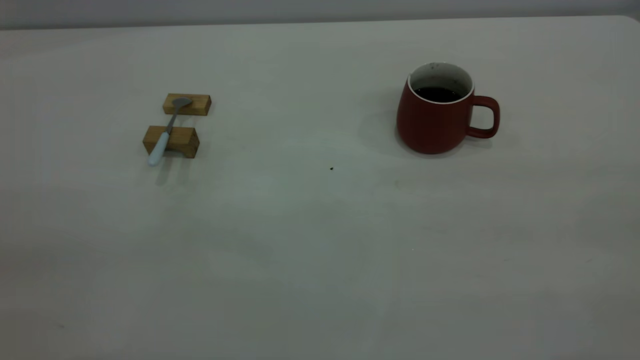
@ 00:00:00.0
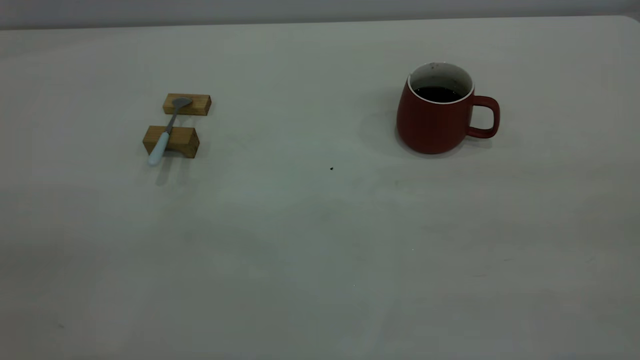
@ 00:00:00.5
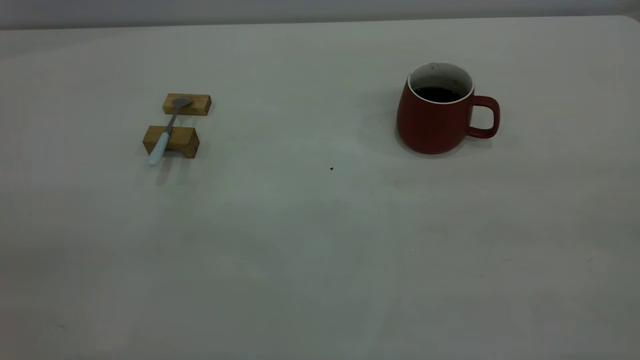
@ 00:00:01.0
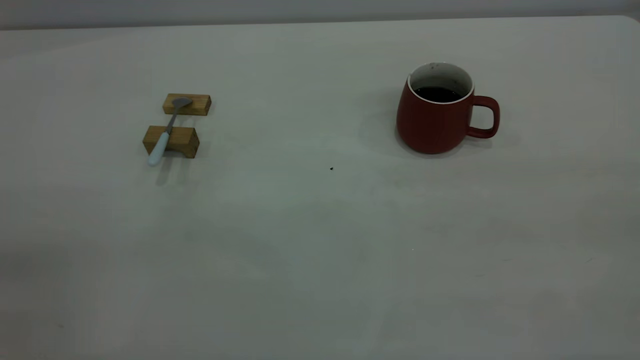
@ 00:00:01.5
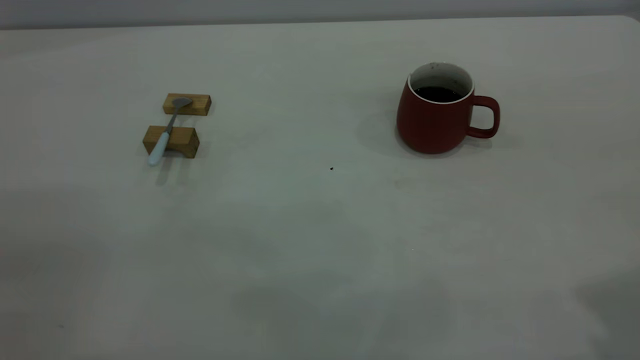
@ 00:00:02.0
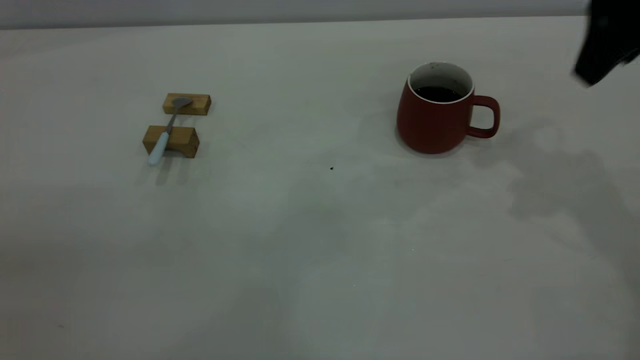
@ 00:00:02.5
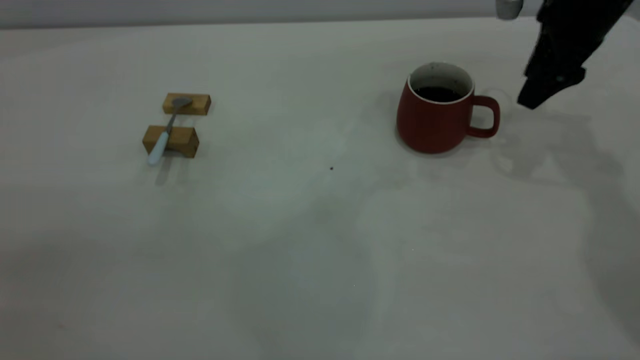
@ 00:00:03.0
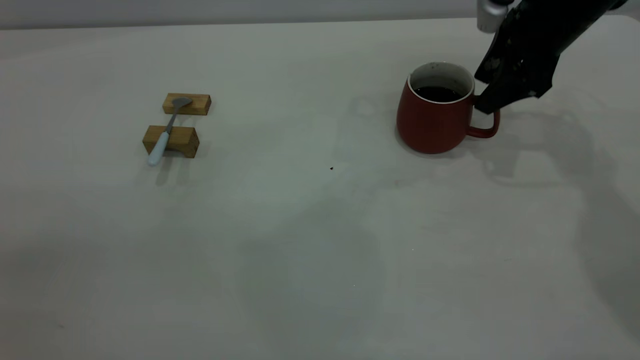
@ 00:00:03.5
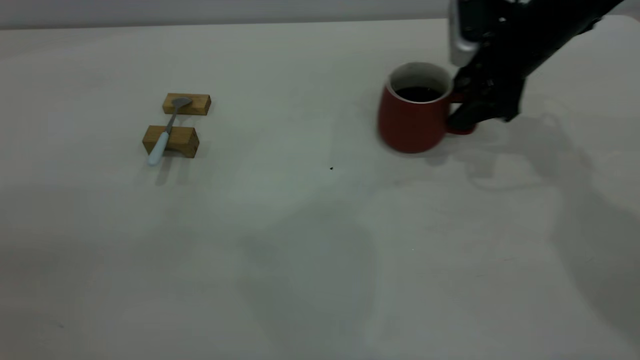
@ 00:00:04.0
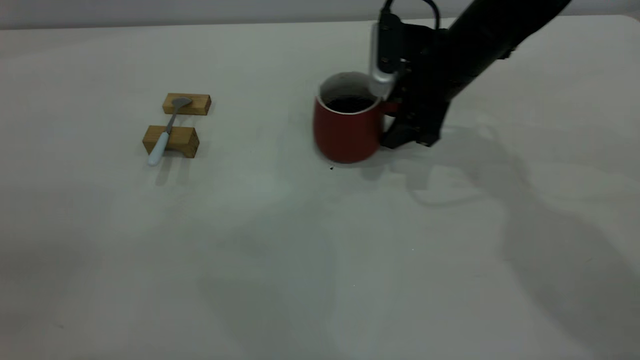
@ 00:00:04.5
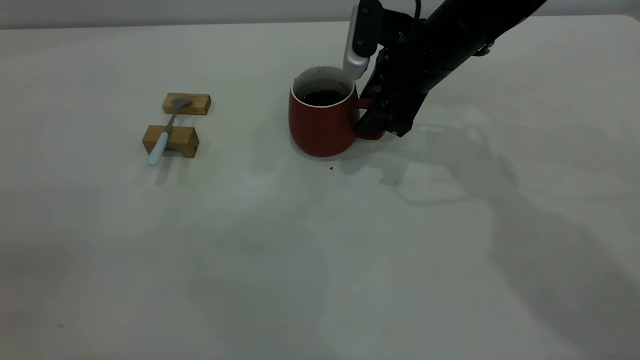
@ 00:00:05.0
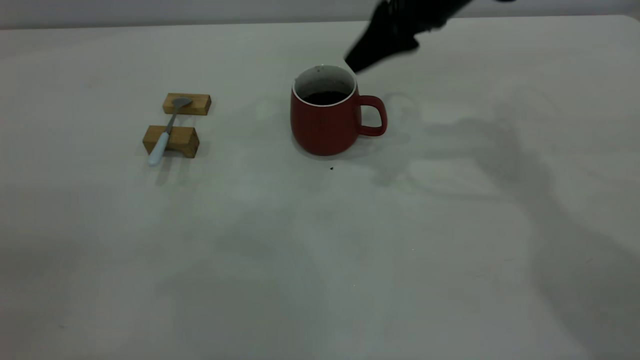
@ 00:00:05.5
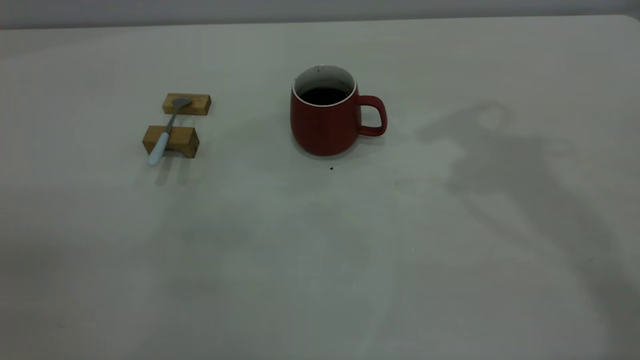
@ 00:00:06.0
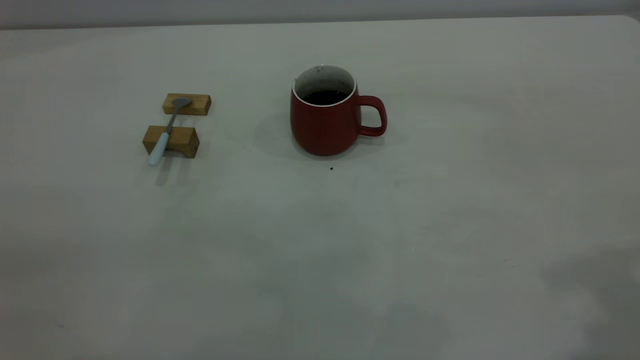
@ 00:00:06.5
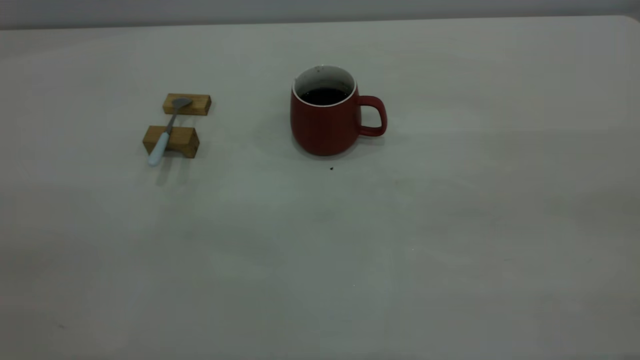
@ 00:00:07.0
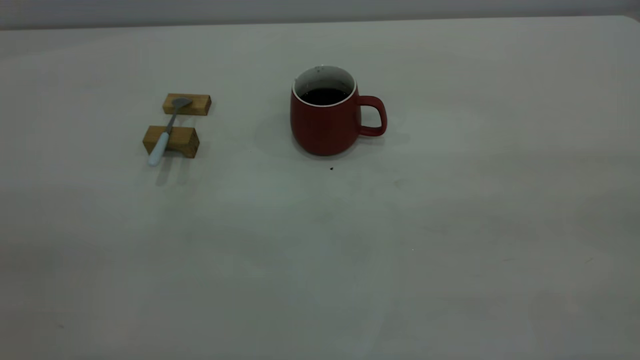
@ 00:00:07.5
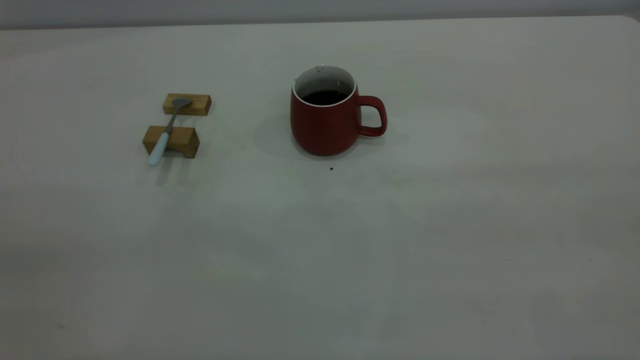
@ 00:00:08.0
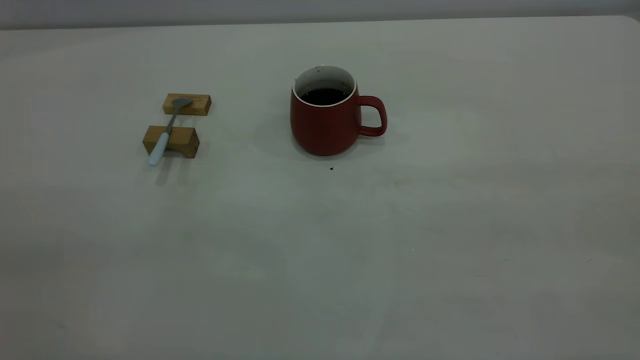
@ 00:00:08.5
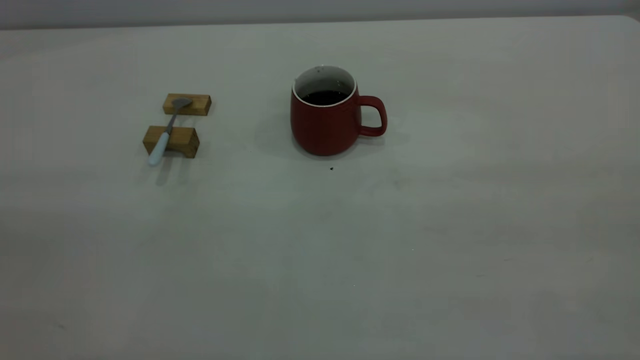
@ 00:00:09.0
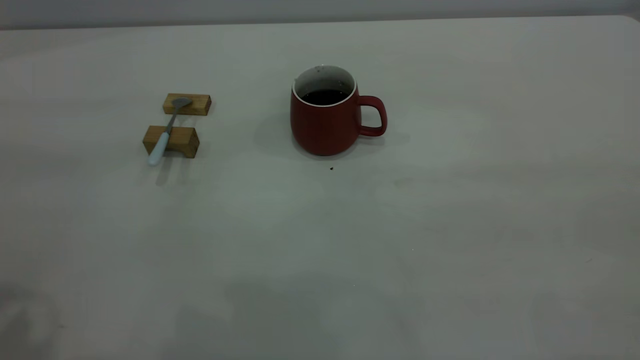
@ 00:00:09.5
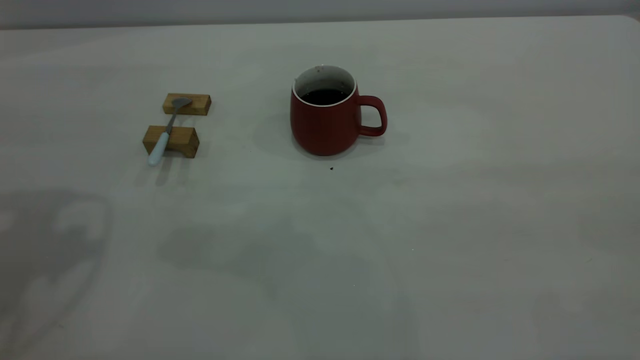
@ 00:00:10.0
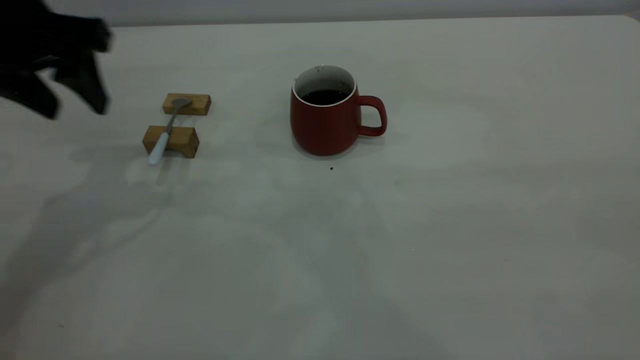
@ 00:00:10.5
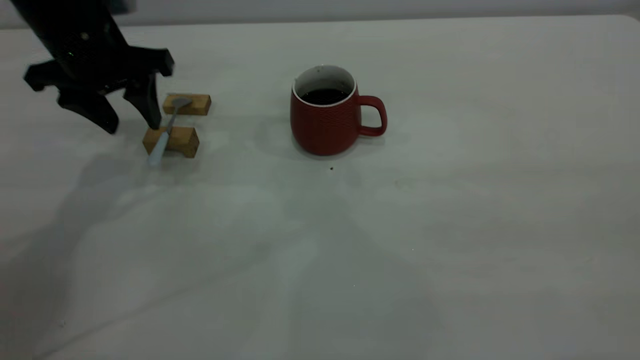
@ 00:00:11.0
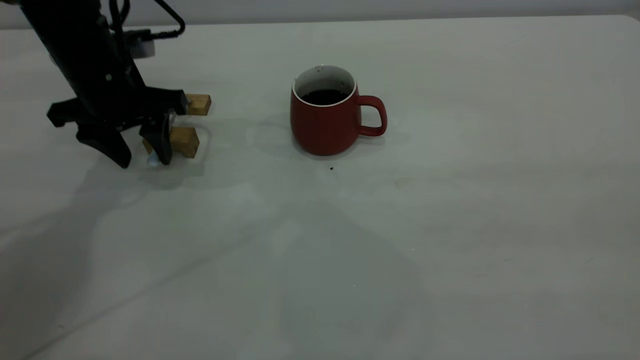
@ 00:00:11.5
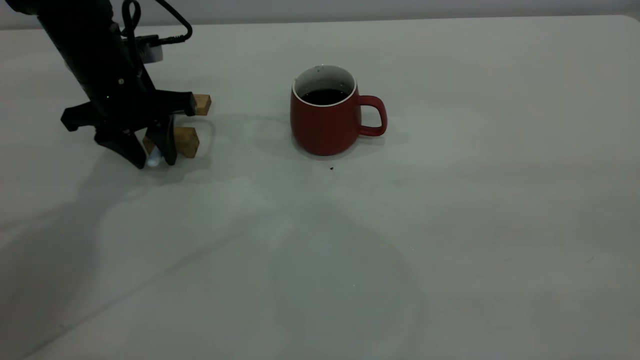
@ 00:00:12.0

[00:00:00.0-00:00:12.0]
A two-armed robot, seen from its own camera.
Step, 00:00:00.0 to 00:00:05.5: Move the cup with coffee to the center of view.
00:00:02.0 to 00:00:04.0: The right gripper heads forward and downward, covering approximately 35 cm, and closes up.
00:00:04.0 to 00:00:06.0: The right gripper is displaced upward by about 25 cm.
00:00:10.0 to 00:00:12.0: The left gripper shifts some 25 cm downward and forward, and closes.

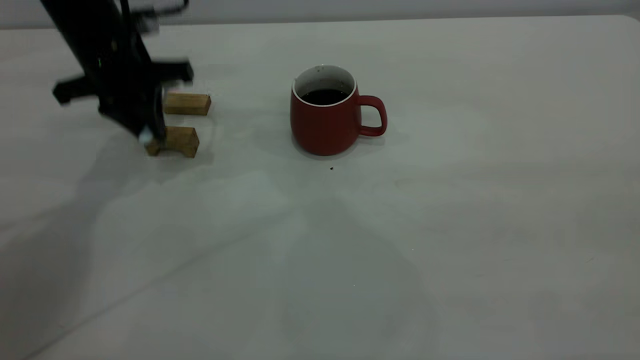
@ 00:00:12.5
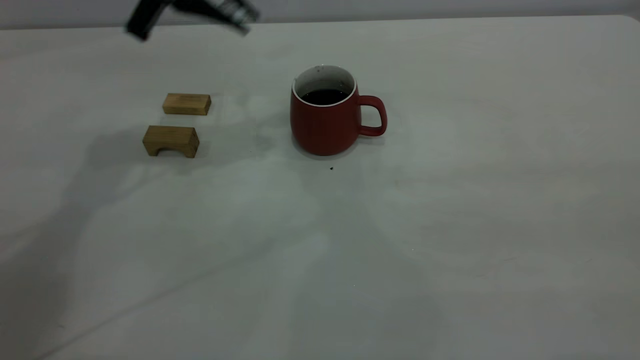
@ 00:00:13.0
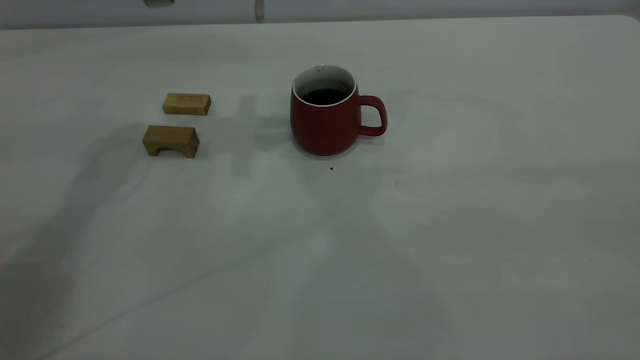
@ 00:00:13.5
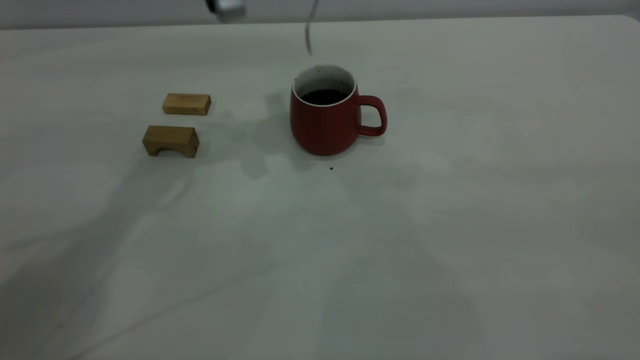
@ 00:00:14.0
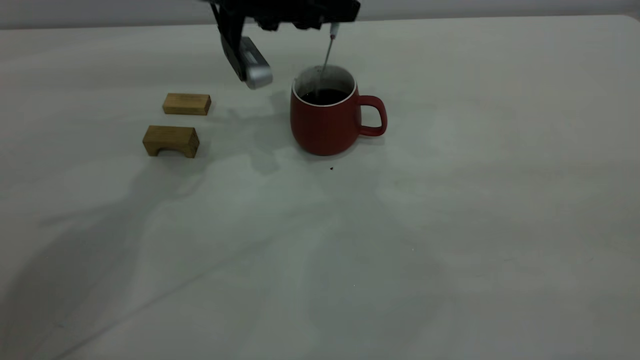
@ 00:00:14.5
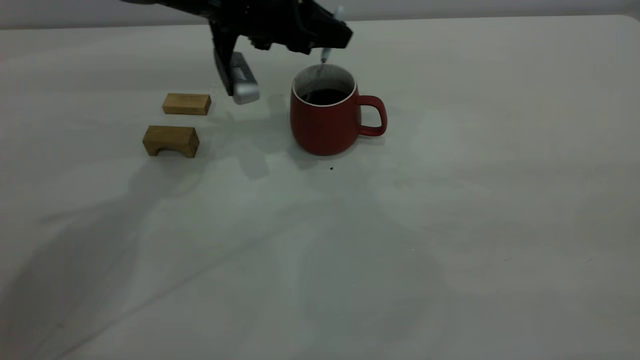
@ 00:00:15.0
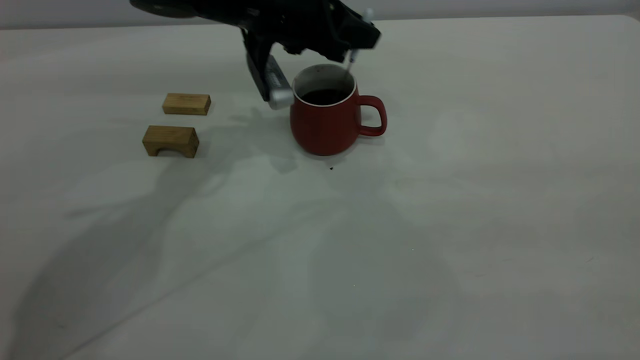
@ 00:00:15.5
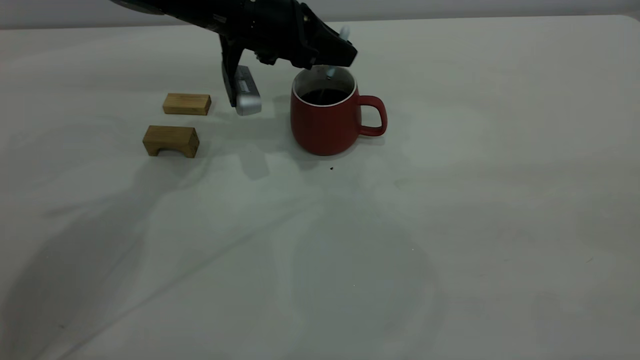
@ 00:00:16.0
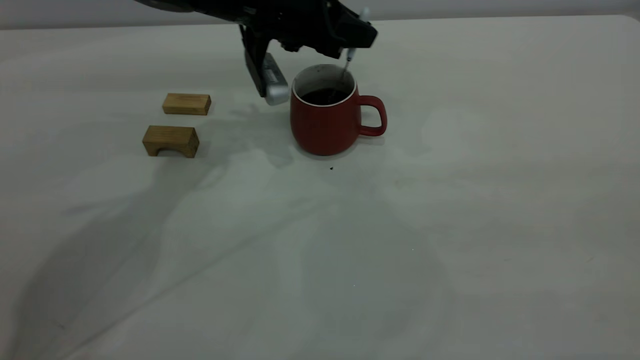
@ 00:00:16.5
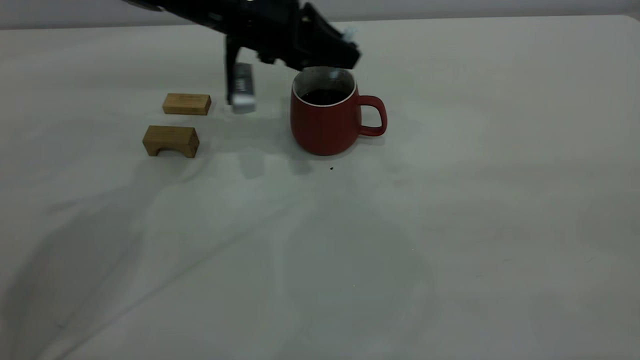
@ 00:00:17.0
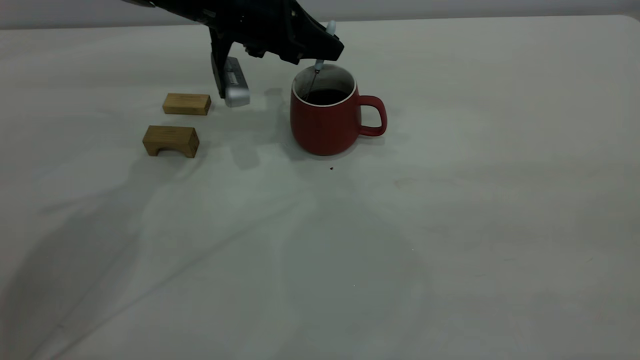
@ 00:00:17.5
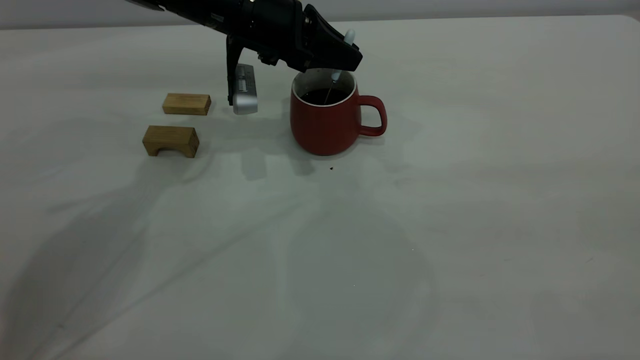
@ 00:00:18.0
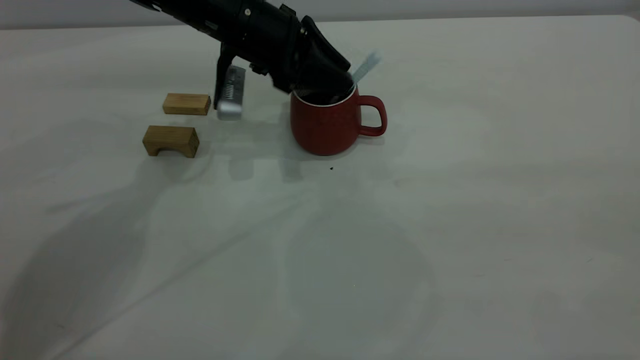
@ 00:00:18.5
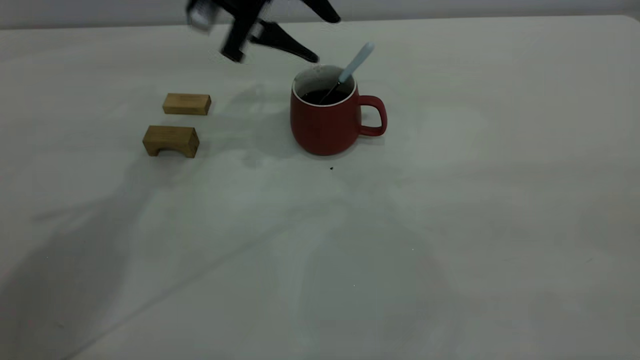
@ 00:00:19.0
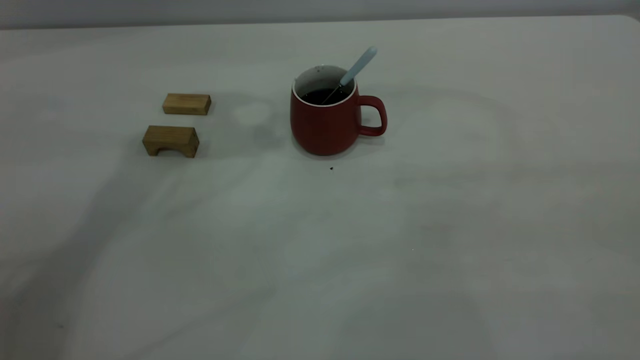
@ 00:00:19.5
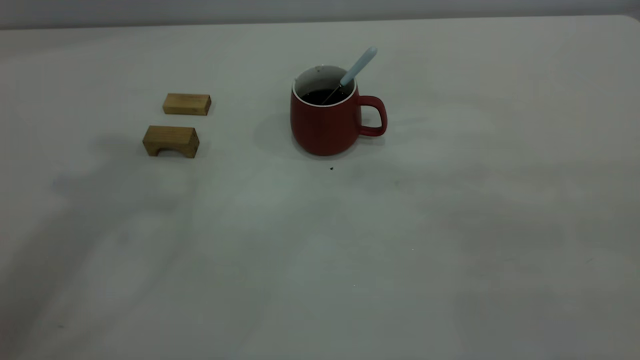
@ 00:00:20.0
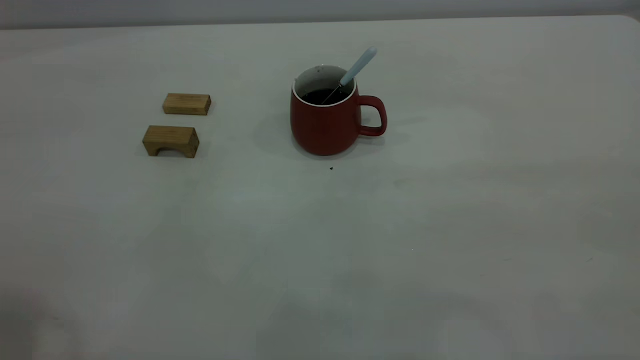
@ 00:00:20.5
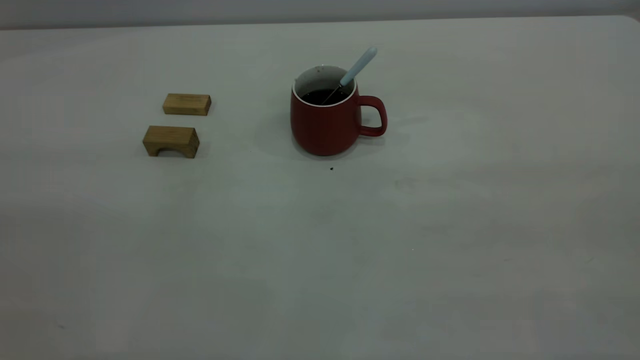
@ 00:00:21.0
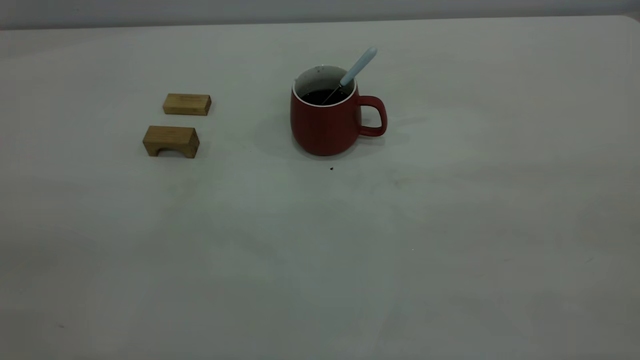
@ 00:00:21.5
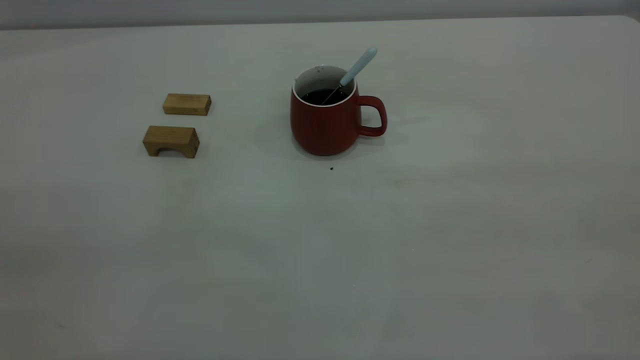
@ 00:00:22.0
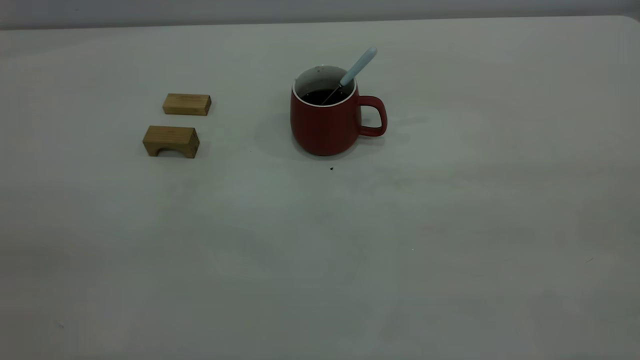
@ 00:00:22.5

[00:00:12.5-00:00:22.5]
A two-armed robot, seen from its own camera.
Step, 00:00:13.0 to 00:00:19.0: Stir the coffee in the cup.
00:00:12.5 to 00:00:14.5: The left gripper shifts approximately 10 cm to the right.
00:00:14.5 to 00:00:16.5: There are only small adjustments of the grippers.
00:00:16.5 to 00:00:18.5: The left gripper opens up.
00:00:18.5 to 00:00:20.5: The left gripper goes approximately 50 cm upward, backward and to the left.
